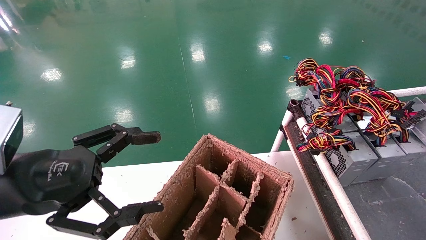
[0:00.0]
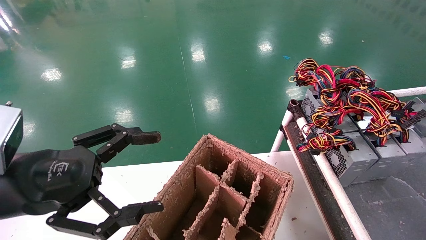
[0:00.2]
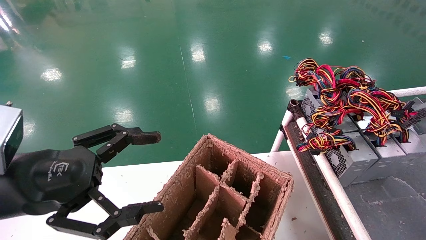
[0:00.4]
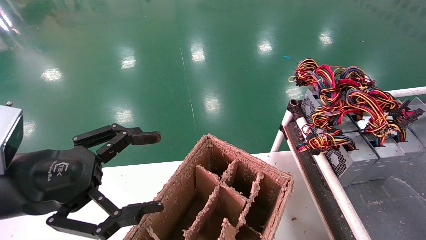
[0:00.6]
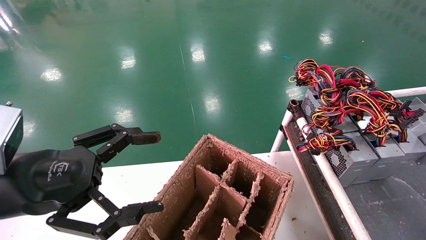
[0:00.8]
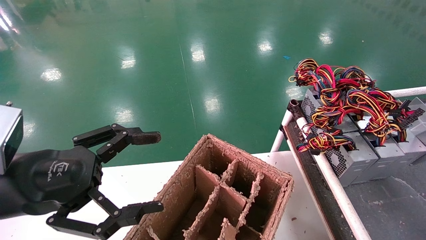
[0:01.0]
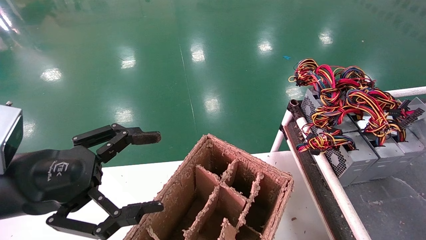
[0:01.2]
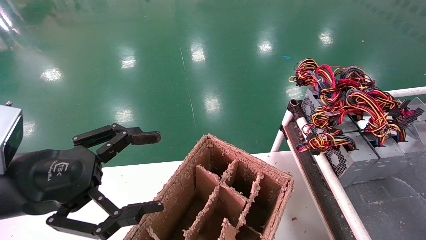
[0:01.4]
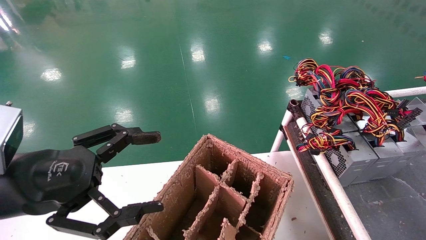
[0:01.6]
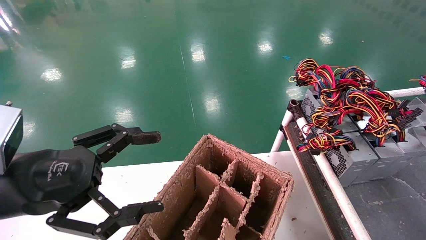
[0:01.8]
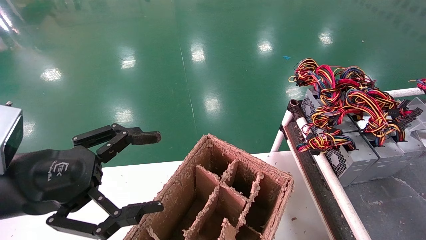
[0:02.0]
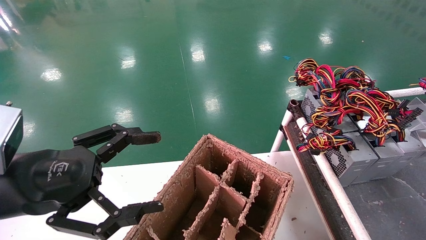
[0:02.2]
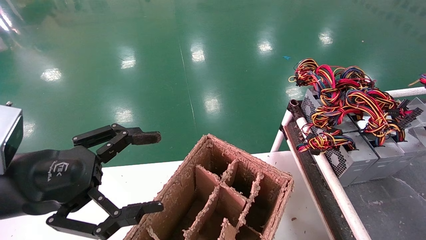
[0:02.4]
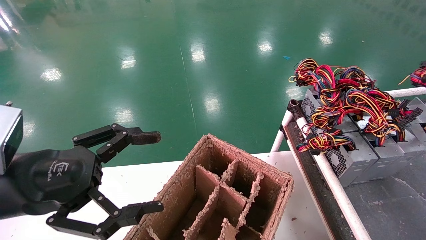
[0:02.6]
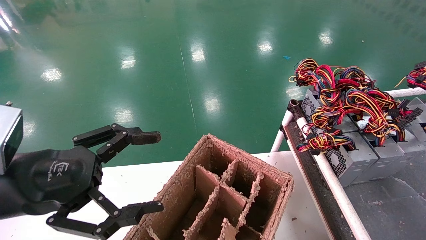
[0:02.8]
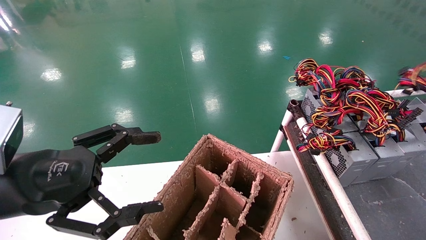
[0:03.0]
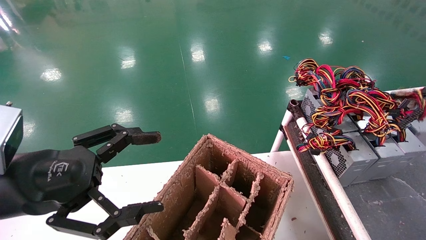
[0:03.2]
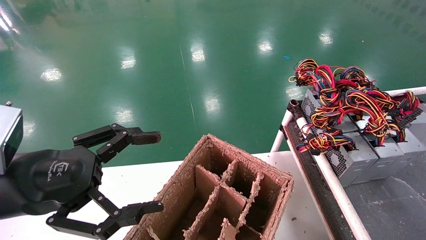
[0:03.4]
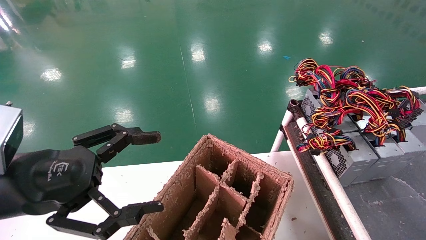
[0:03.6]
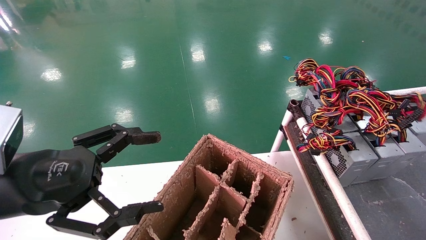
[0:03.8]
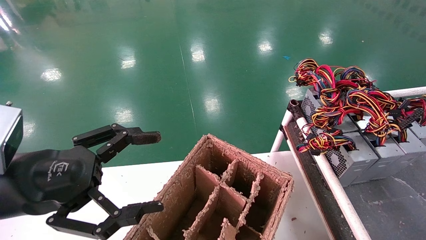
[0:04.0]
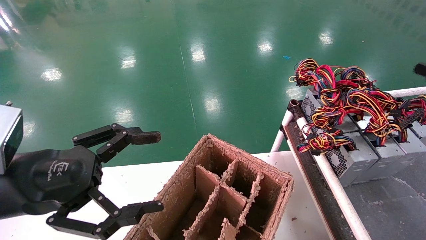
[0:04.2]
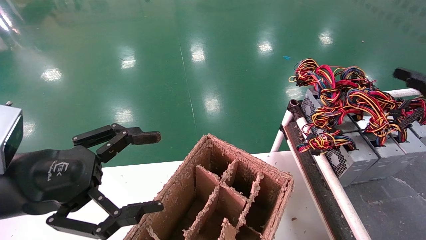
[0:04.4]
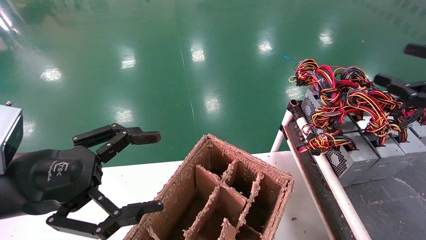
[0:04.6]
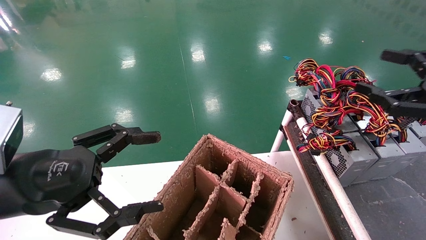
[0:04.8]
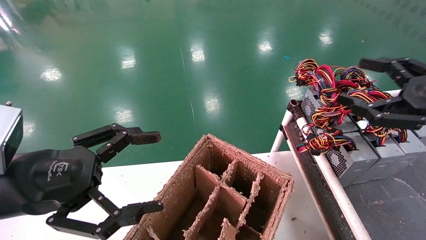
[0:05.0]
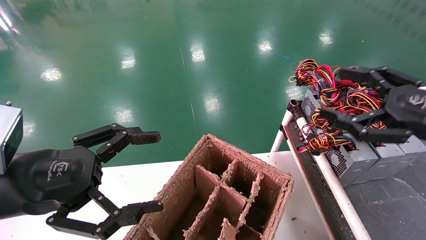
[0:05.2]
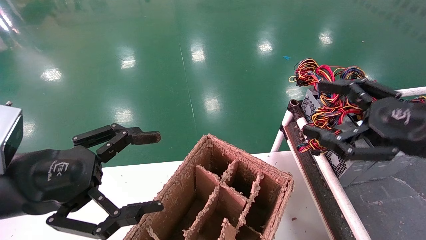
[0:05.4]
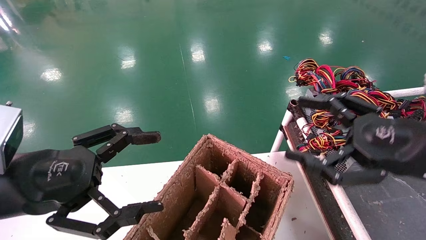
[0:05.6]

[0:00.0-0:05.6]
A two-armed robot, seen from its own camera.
Step, 0:00.0 to 0:04.0: Place the power supply on the operating table.
0:00.0 to 0:01.4: The right gripper heads downward and forward, covering roughly 10 cm.
0:02.8 to 0:04.2: The right gripper moves roughly 5 cm, and opens.
0:04.2 to 0:05.6: The right gripper goes roughly 20 cm to the left.
